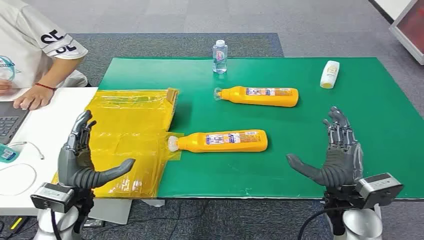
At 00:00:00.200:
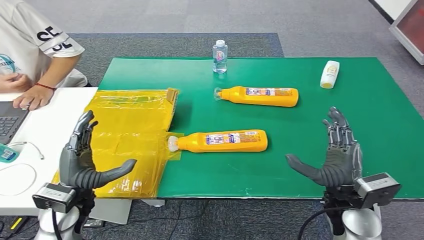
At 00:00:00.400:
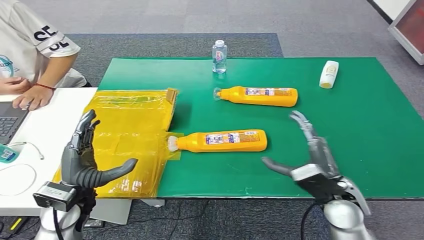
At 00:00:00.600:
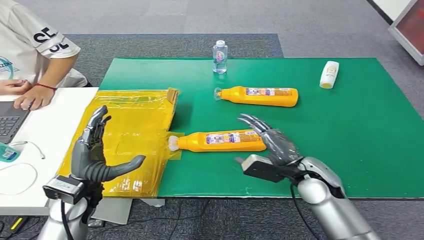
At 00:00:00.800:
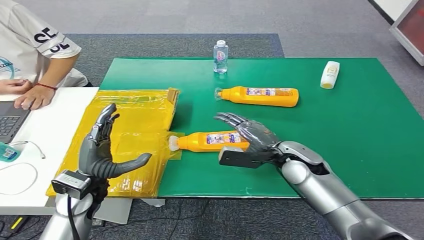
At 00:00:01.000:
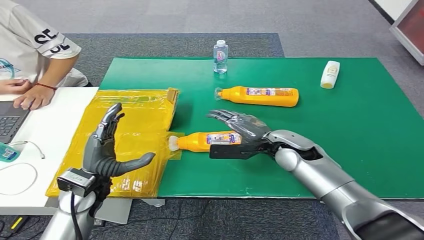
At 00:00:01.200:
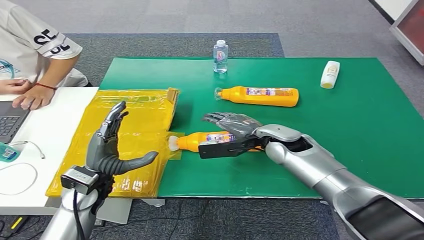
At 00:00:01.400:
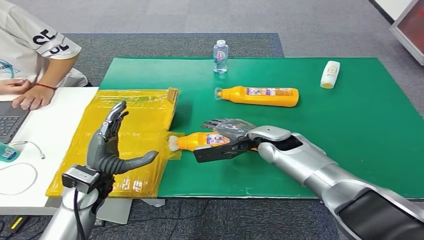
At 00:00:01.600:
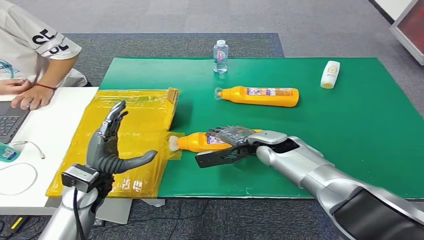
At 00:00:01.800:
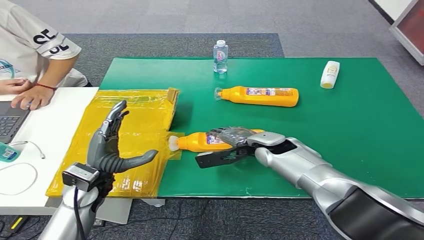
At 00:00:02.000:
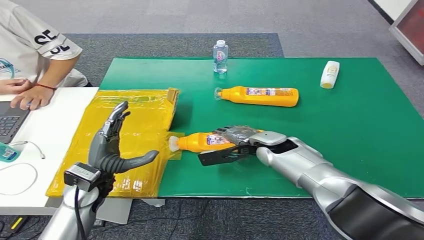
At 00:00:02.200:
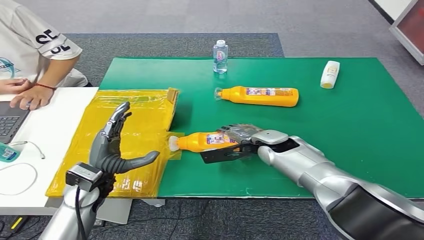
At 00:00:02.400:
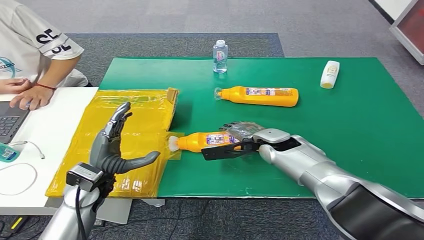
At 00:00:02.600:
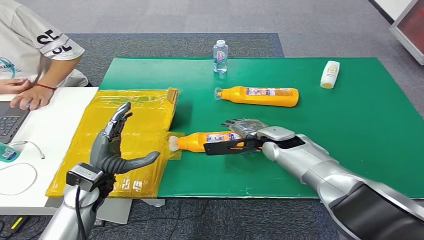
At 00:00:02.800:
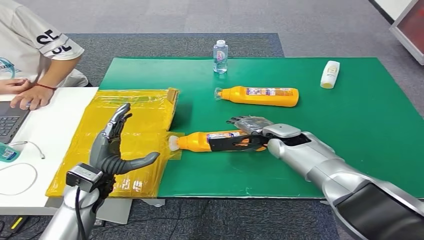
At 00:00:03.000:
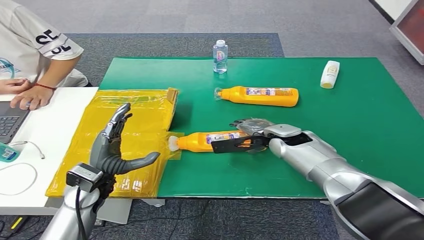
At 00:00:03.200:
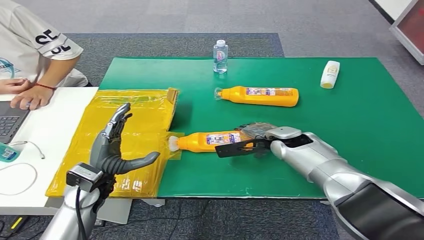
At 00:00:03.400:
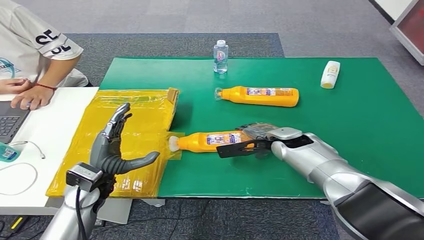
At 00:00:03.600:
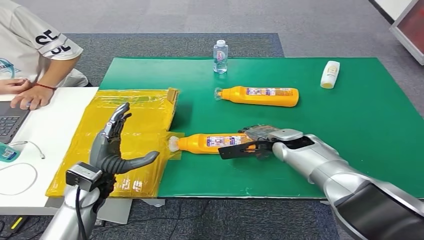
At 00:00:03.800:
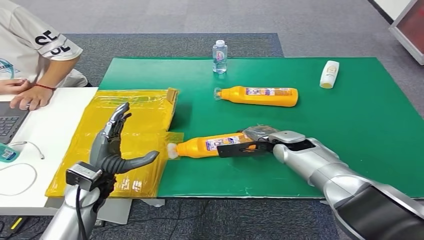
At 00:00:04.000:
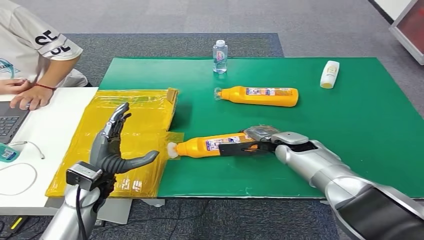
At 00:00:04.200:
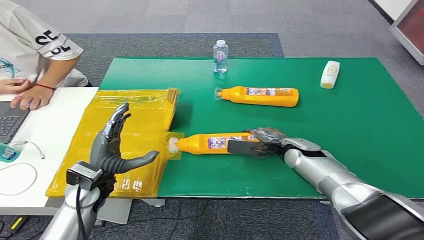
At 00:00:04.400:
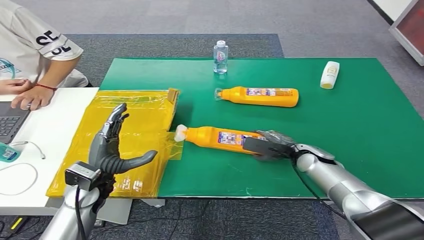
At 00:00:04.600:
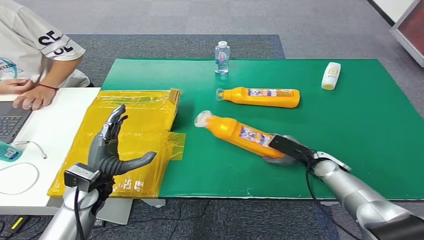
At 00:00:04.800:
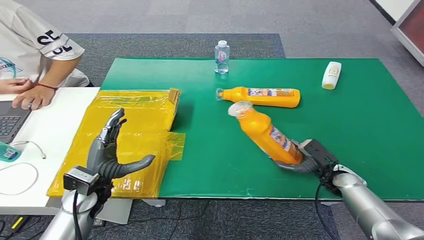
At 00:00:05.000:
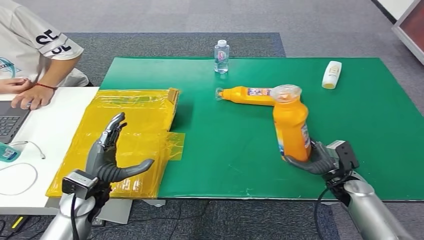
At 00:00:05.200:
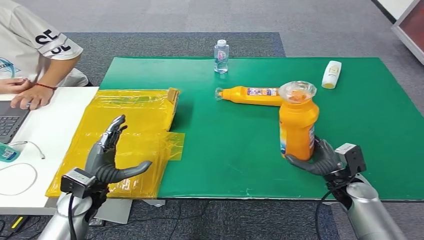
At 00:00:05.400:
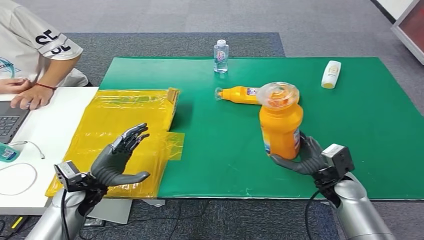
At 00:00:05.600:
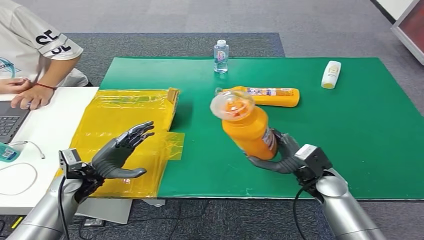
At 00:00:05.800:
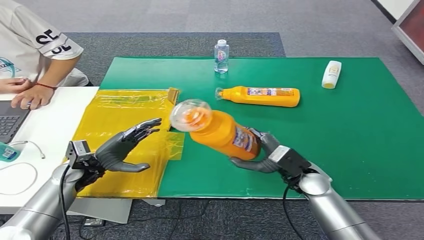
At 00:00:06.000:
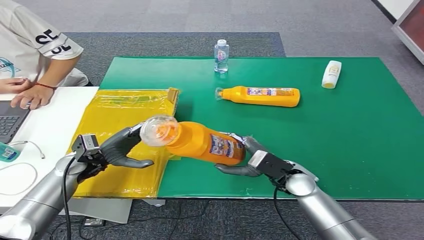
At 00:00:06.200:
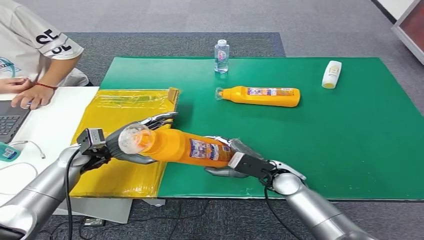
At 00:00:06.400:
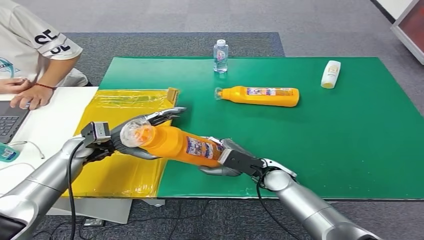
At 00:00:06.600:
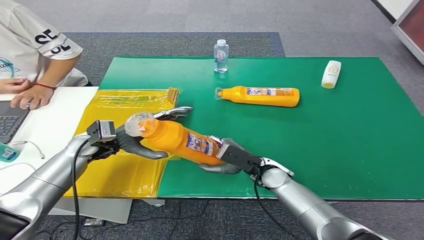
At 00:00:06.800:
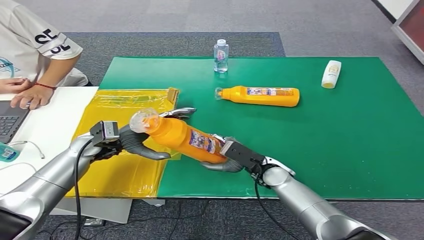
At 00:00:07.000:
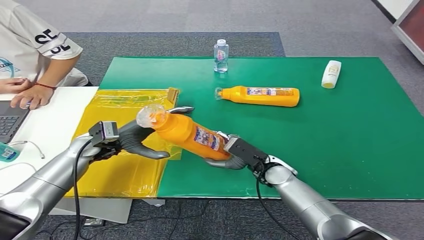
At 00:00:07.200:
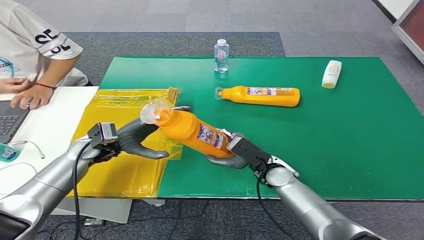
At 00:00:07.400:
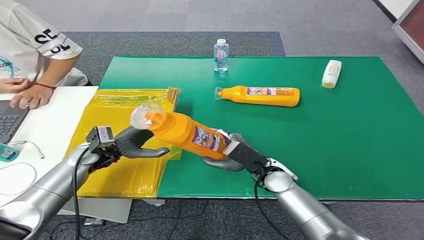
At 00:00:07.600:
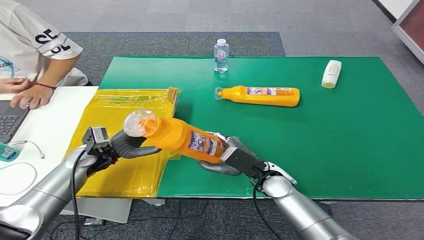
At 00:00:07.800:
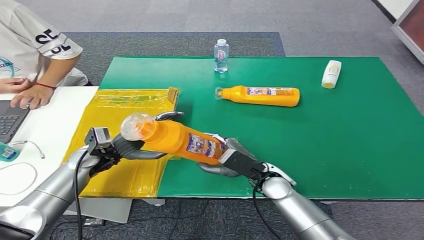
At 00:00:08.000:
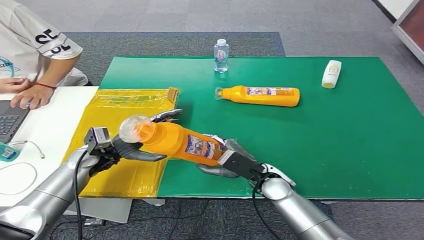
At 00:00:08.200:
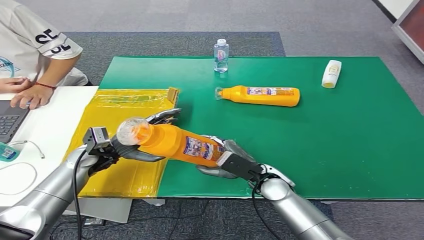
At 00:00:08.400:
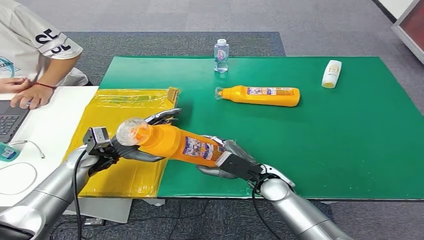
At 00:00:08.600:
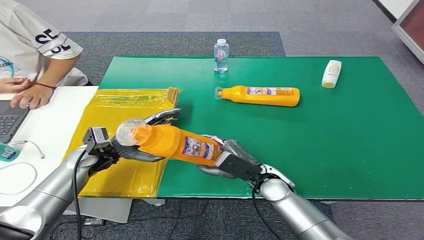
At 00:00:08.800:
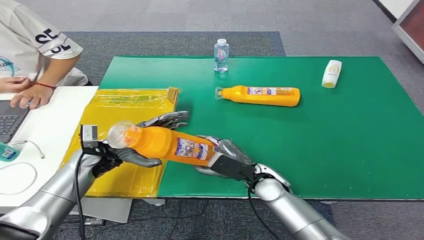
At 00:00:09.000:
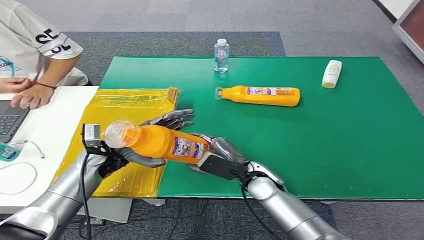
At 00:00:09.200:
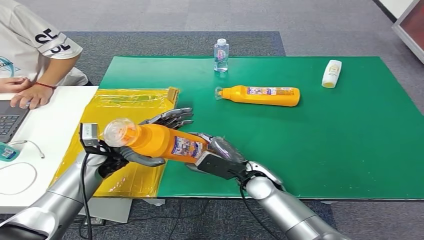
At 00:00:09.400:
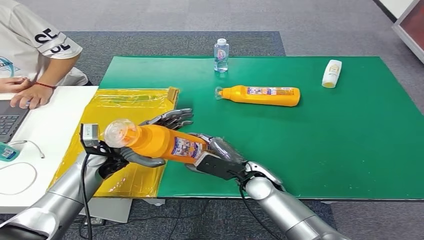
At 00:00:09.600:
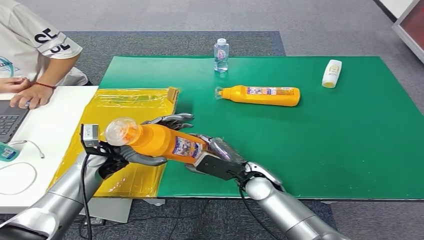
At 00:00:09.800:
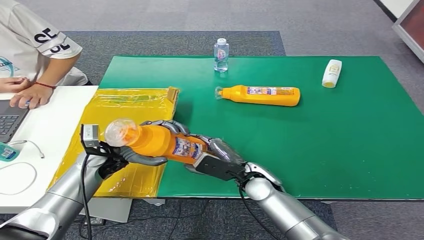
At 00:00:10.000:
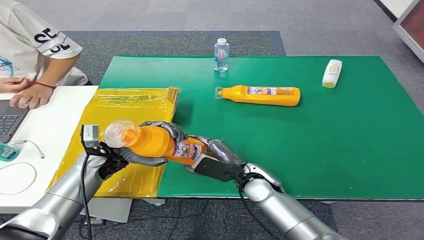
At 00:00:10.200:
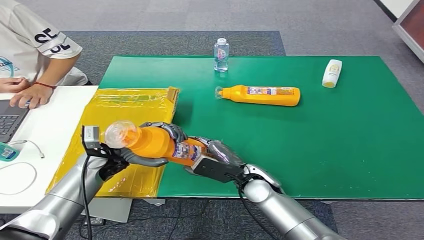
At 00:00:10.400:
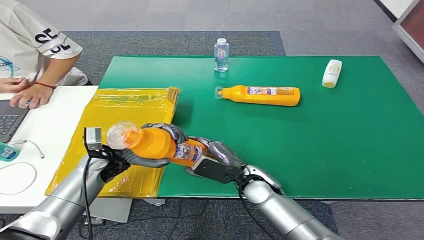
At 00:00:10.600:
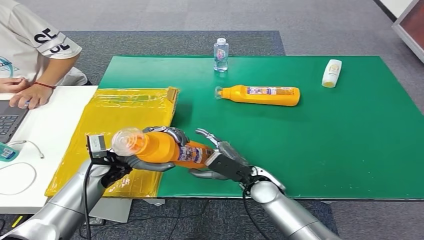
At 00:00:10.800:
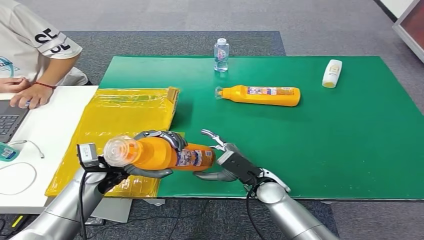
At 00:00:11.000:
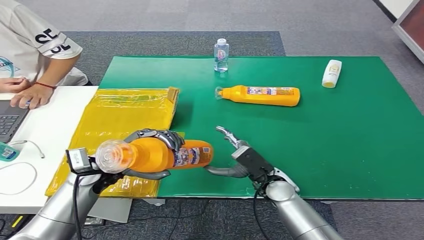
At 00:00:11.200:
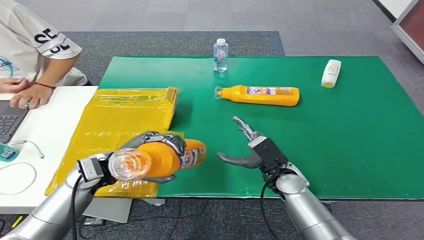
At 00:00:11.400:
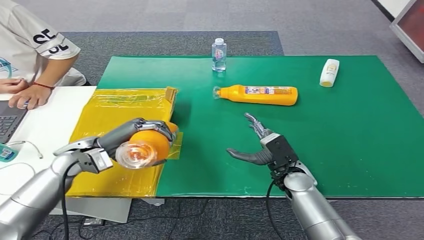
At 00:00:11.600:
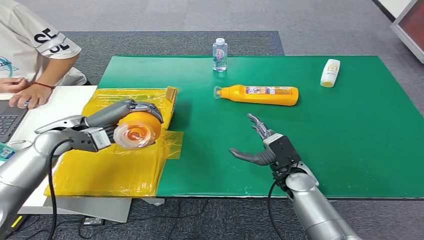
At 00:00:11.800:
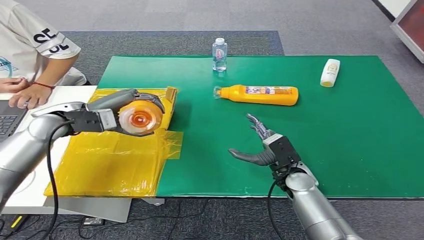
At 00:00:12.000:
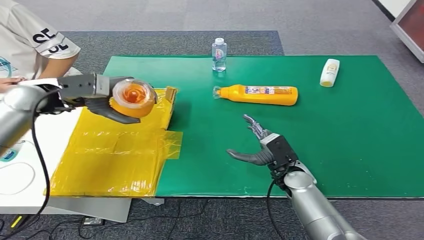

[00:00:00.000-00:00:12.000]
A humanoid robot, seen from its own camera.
Step, 00:00:00.000 to 00:00:04.800: Pick up the bottle from the table.
00:00:01.600 to 00:00:03.000: The hands stay close to where they were, moving slightly.
00:00:03.000 to 00:00:04.400: The right hand goes some 10 cm to the right and downward.
00:00:07.600 to 00:00:10.400: The hands stay close to where they were, moving slightly.

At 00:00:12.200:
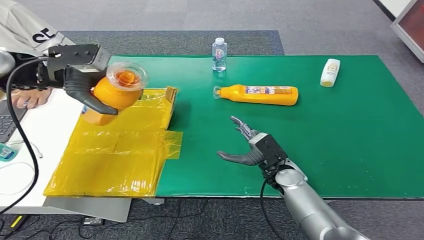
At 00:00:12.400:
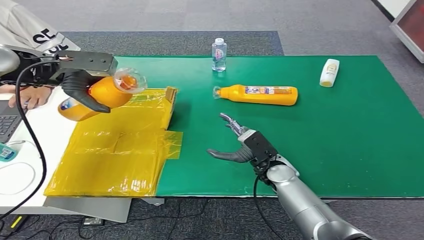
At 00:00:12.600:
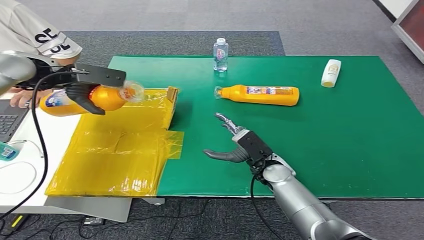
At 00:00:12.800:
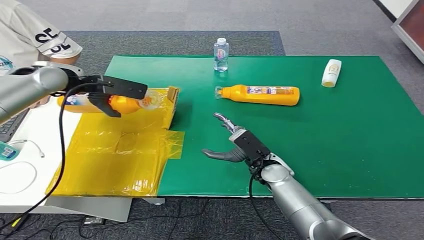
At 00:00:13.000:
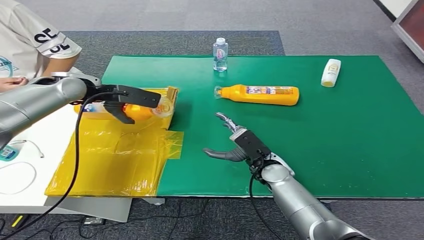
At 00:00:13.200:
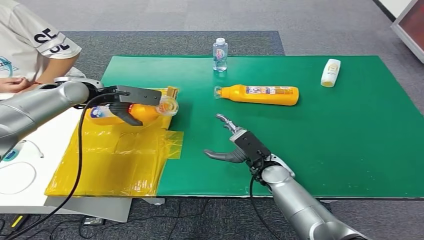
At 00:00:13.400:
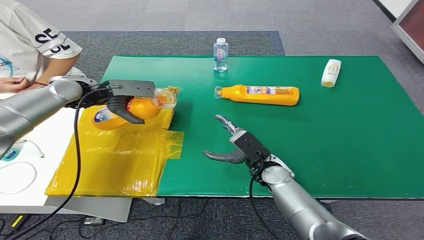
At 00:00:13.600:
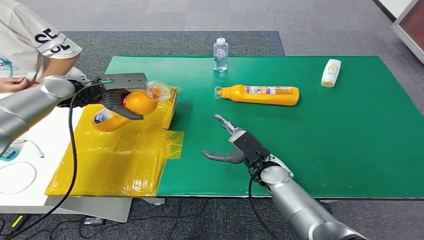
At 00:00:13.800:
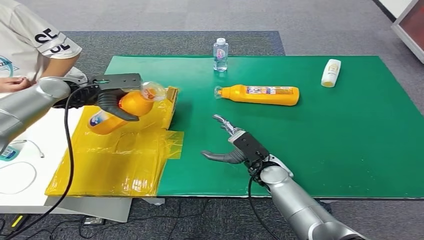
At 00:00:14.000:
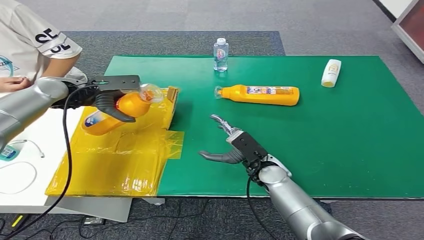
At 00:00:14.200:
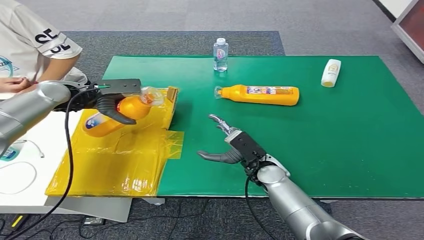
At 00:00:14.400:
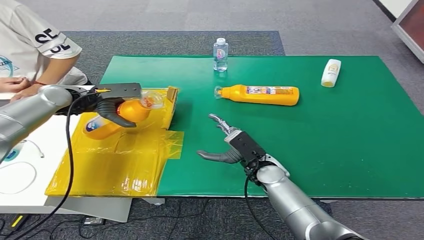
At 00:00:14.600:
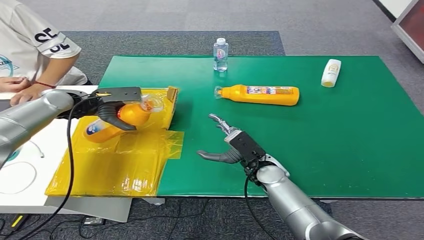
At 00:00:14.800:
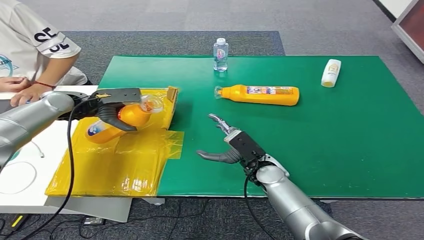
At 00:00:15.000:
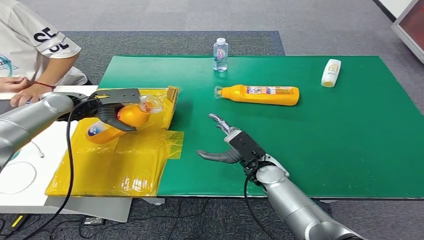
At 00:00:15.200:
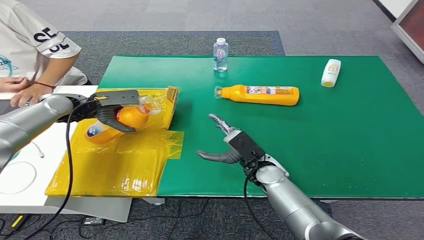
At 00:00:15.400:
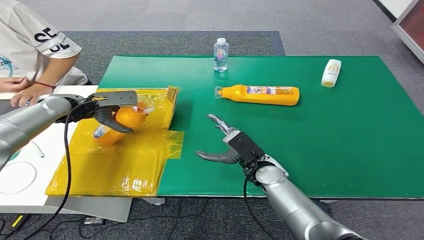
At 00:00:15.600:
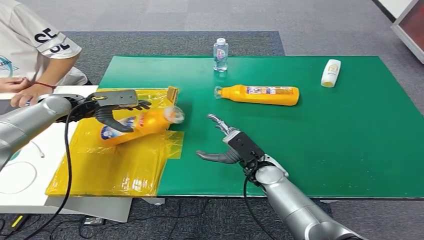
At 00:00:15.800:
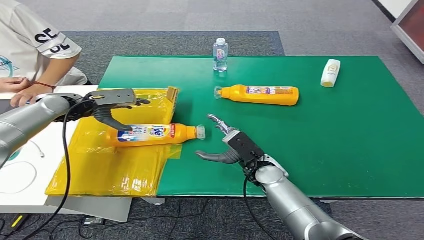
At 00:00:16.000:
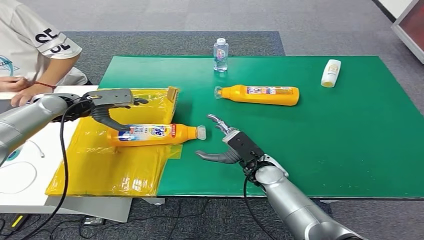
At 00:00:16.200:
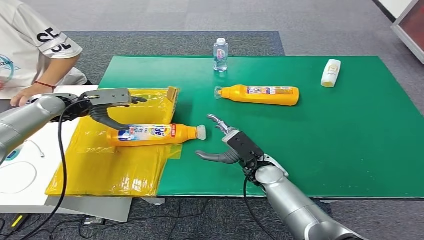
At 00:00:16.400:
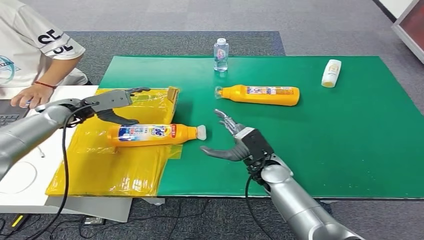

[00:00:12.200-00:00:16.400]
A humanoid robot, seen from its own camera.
Step, 00:00:12.200 to 00:00:16.400: Turn the bottle to the front side.
00:00:12.200 to 00:00:13.600: The left hand heads downward, covering approximately 10 cm.
00:00:13.600 to 00:00:15.000: The left hand ends up about 5 cm from where it was.
